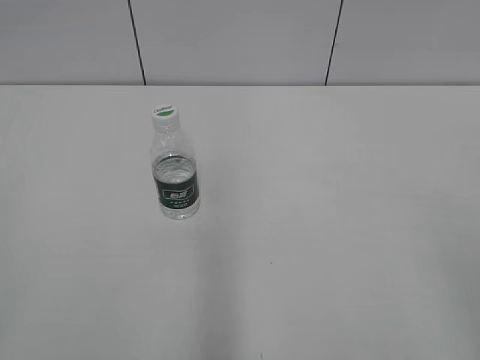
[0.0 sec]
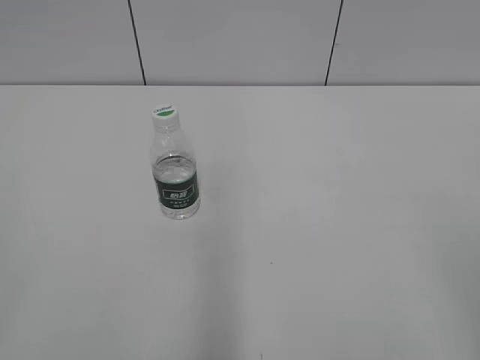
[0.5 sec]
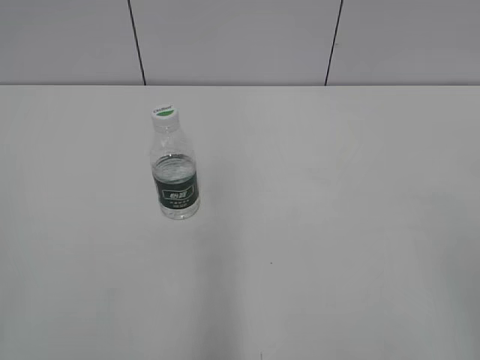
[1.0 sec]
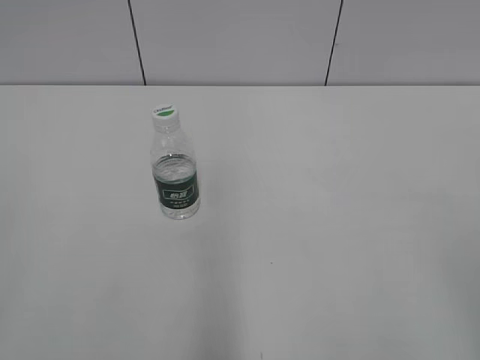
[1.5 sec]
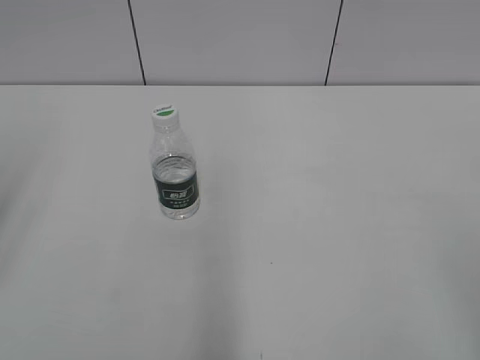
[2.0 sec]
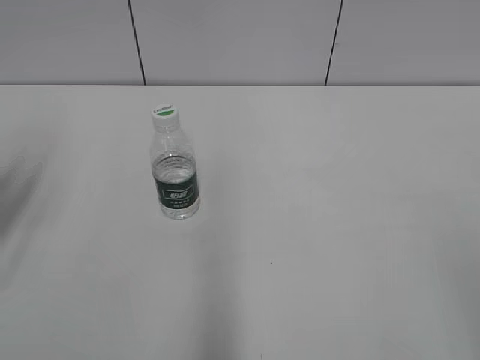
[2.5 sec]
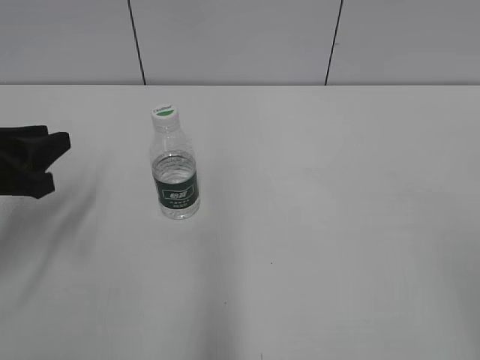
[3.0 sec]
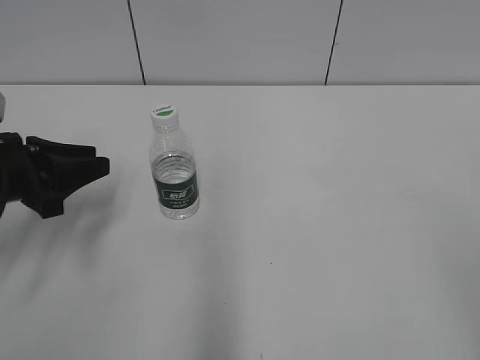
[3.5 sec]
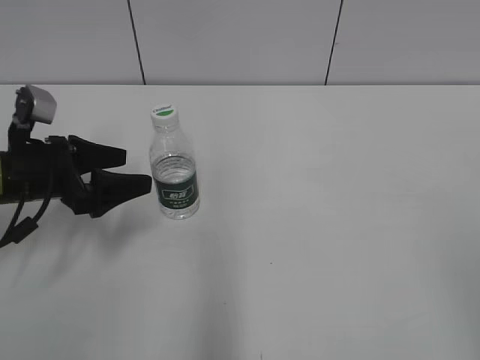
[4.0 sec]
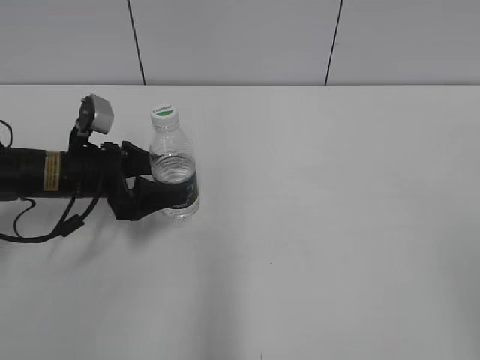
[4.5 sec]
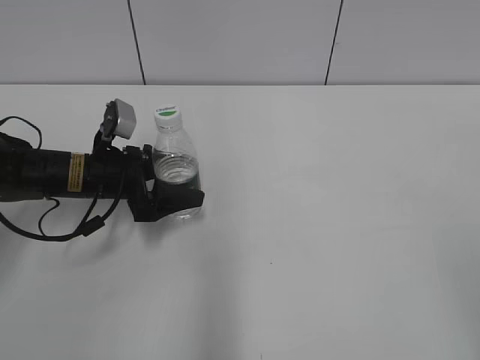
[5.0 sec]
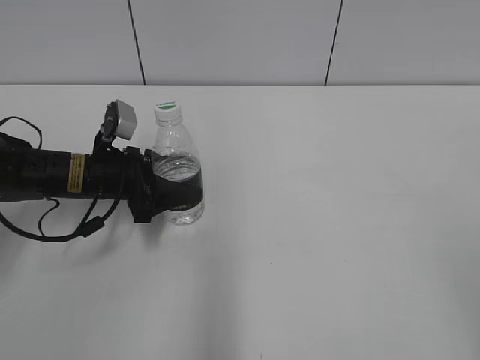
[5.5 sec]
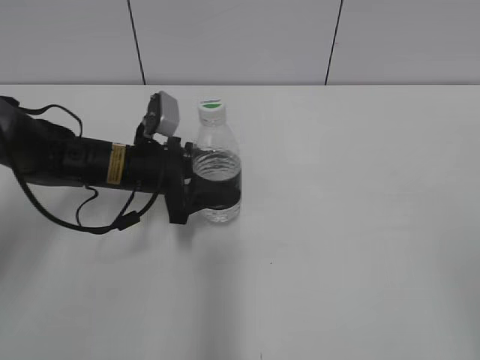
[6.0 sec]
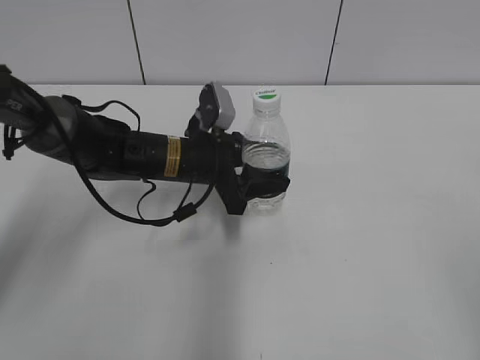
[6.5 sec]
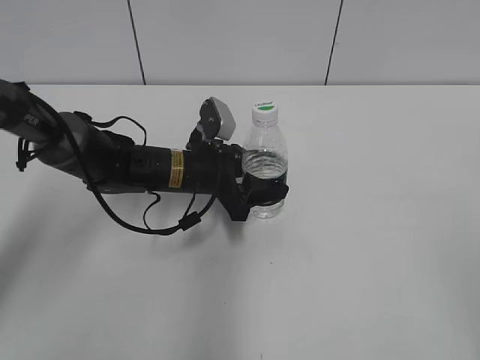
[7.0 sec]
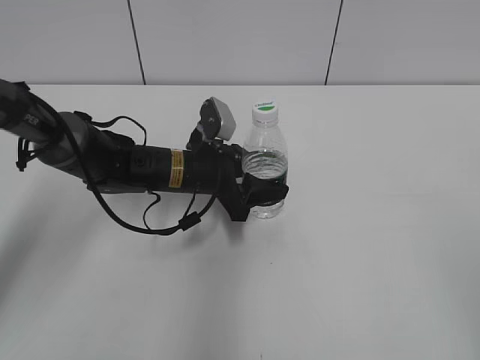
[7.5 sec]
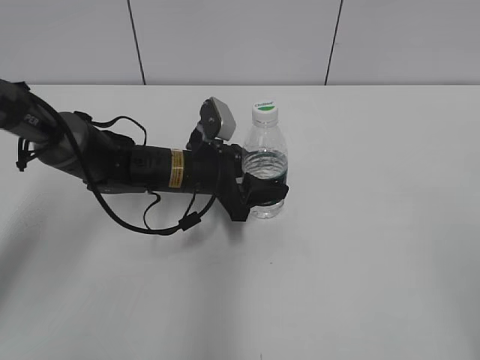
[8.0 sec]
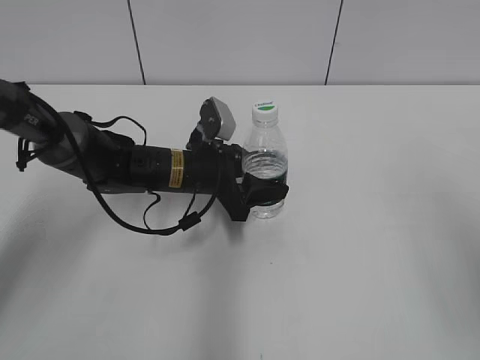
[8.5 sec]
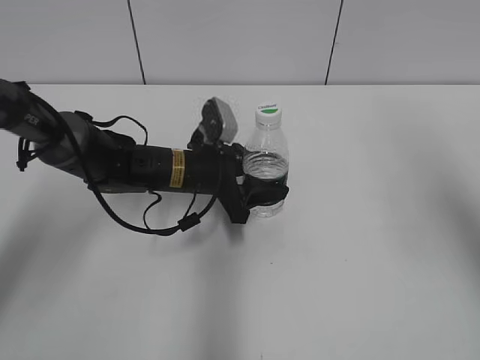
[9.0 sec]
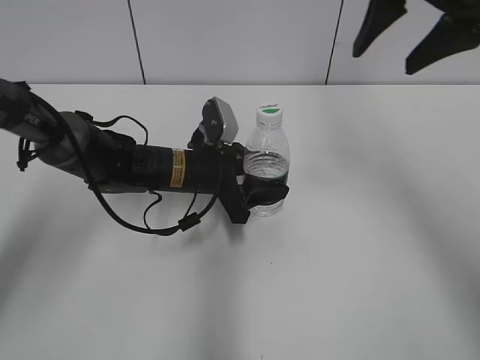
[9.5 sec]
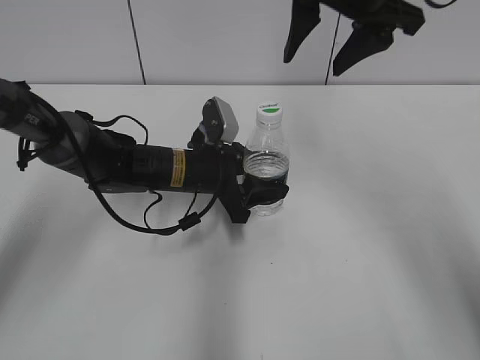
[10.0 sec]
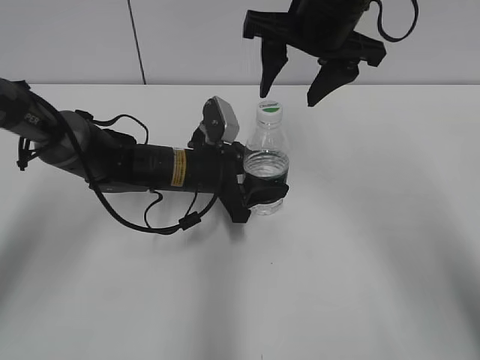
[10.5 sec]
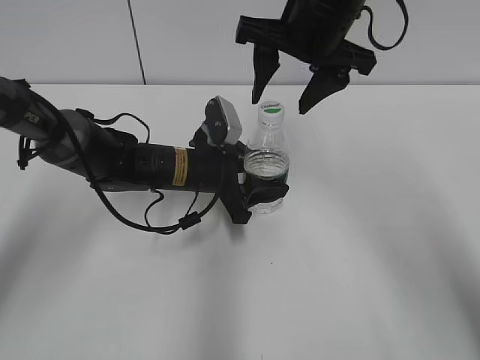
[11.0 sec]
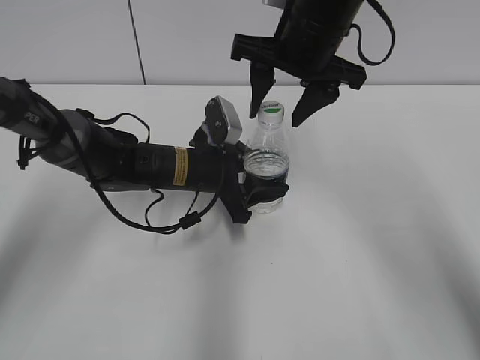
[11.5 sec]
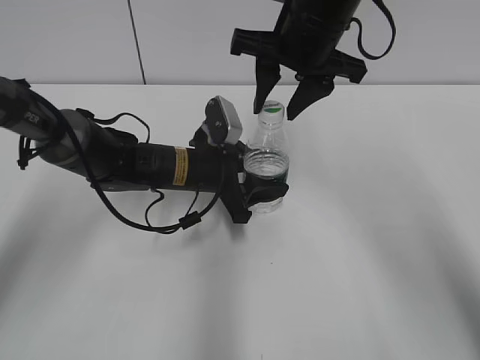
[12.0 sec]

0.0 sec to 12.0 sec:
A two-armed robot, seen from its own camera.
Step, 0.0 sec to 5.0 sec: Grasp the bottle and move it to the center of the table with the left gripper.
Step, 5.5 sec to 6.5 sec: Lift the bottle and move it to the center of the table with the left gripper.
2.0 sec to 4.0 sec: The left gripper travels downward and forward by about 30 cm, and opens its fingers.
4.0 sec to 6.0 sec: The left gripper goes approximately 10 cm to the right and forward, and closes.
6.0 sec to 8.0 sec: The left gripper moves to the right, roughly 10 cm.
8.0 sec to 10.0 sec: The right gripper travels forward and to the left by some 40 cm.
10.0 sec to 12.0 sec: The right gripper travels downward by approximately 5 cm, and closes up.

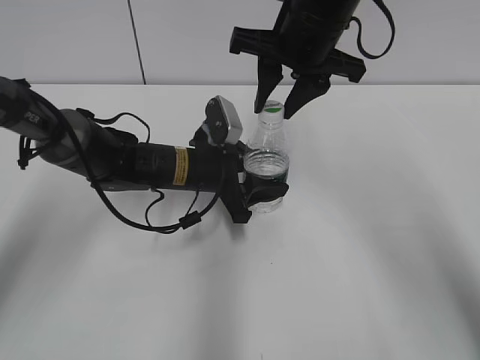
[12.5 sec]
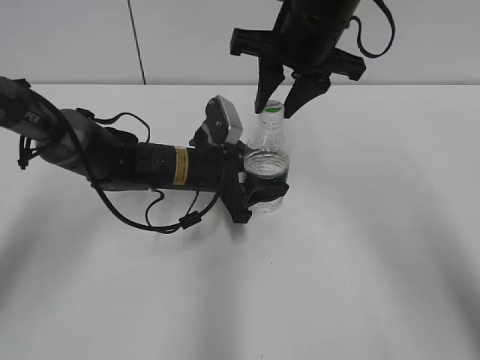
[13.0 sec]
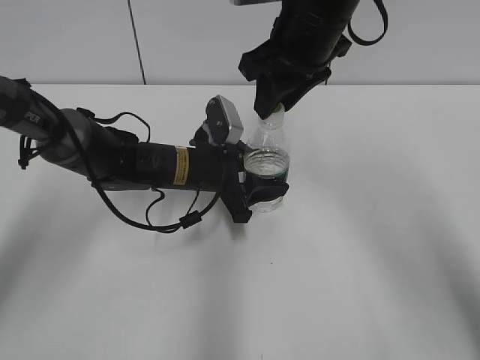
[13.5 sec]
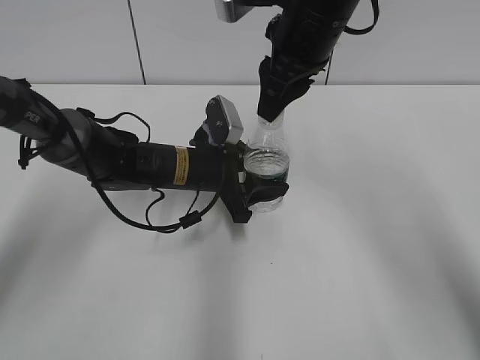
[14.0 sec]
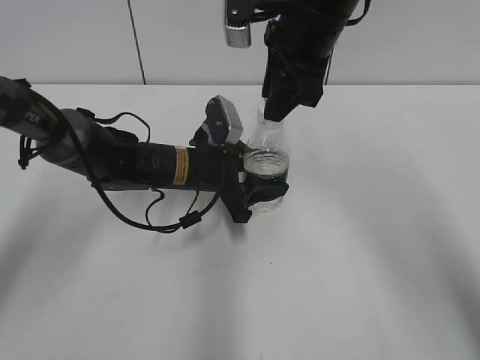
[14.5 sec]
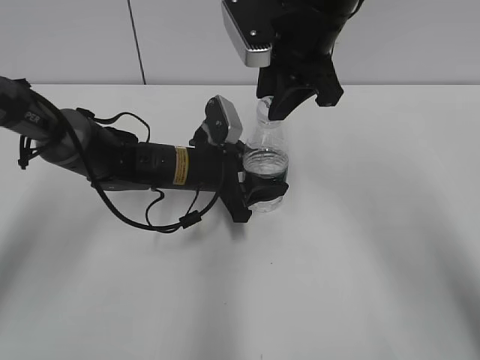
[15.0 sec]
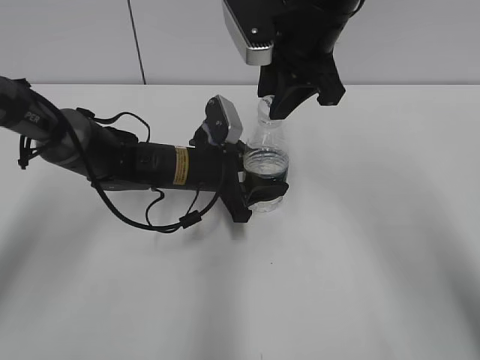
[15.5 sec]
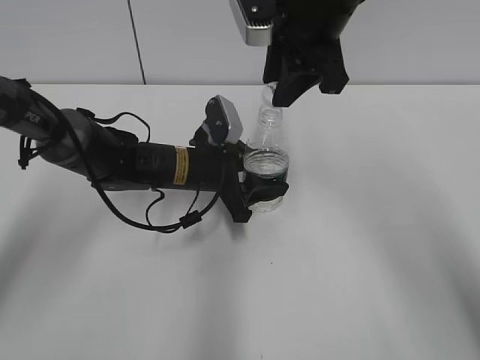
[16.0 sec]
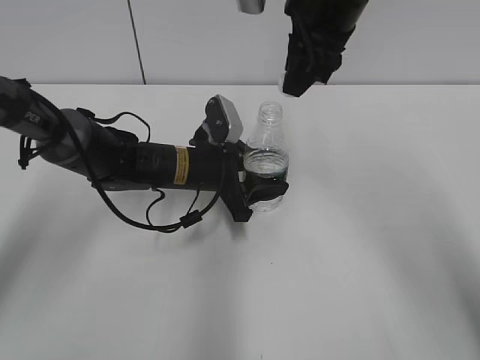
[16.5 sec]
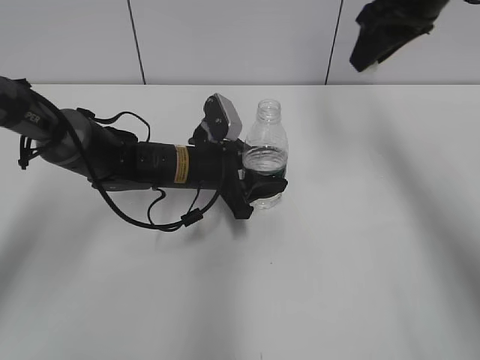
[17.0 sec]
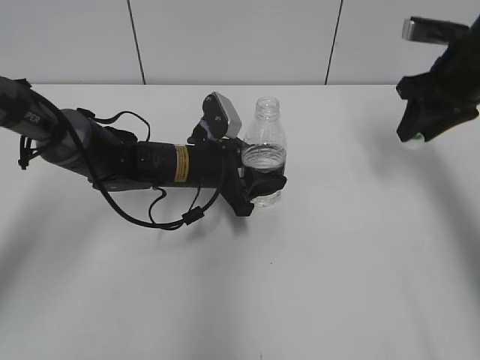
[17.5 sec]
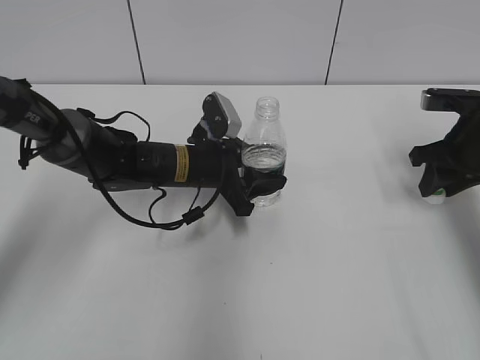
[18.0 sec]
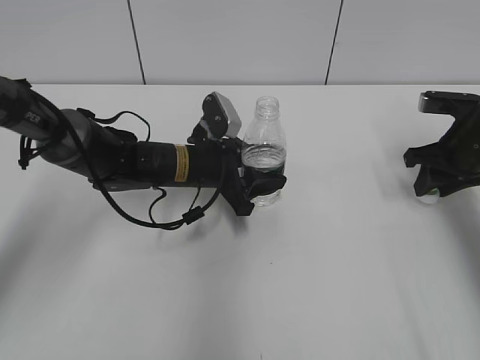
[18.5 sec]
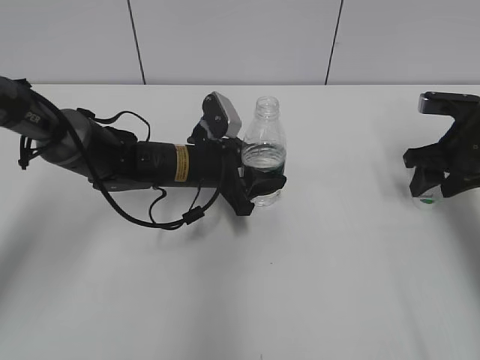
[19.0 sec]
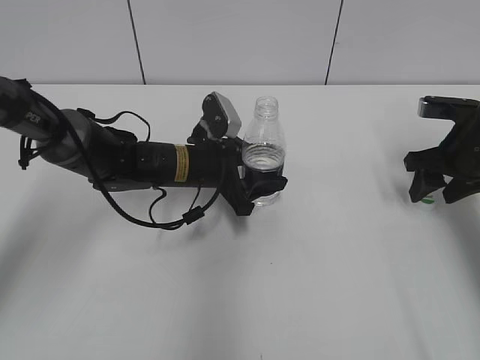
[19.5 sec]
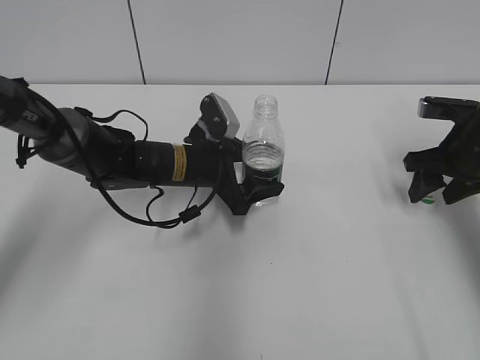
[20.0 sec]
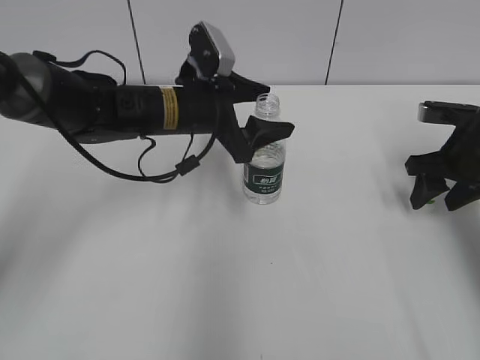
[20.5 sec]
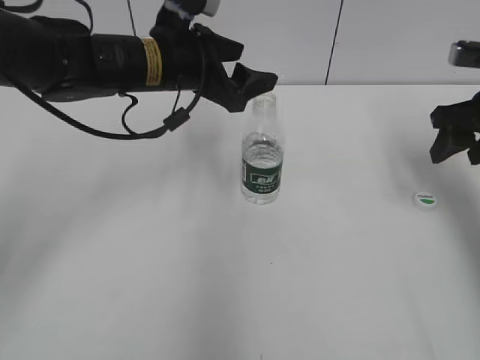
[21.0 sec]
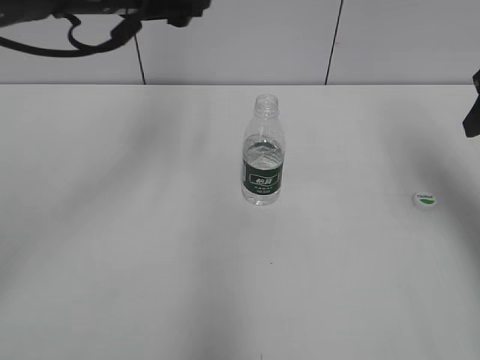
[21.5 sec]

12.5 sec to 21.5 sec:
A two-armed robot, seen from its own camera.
Step, 12.5 sec to 16.0 sec: Unscrew the bottle cap with the right gripper while holding the bottle with the left gripper.
Step, 16.5 sec to 19.5 sec: Place the bottle cap on the table with the right gripper.
Step, 20.0 sec to 21.0 sec: Place the bottle on the table with the left gripper.
14.5 sec to 17.0 sec: The right gripper is displaced to the right by about 10 cm.
17.0 sec to 19.5 sec: The right gripper is displaced downward and to the right by roughly 20 cm, and opens up.
19.5 sec to 21.5 sec: The left gripper is displaced upward by roughly 25 cm, and opens, while the right gripper shifts roughly 15 cm upward.

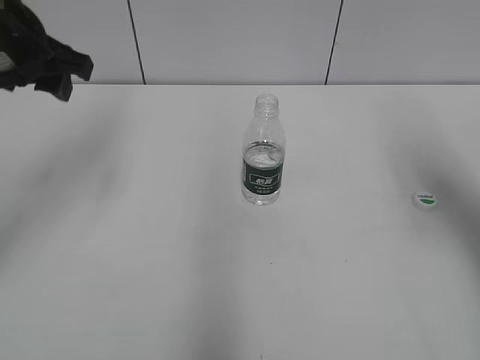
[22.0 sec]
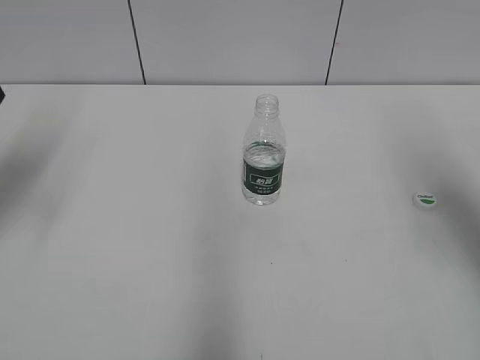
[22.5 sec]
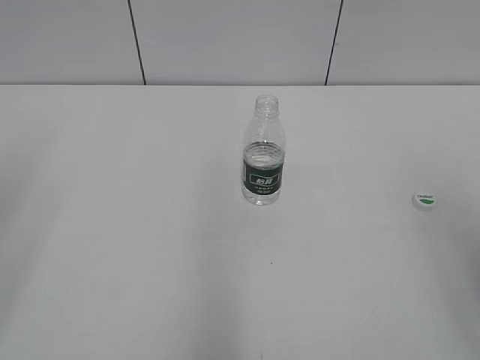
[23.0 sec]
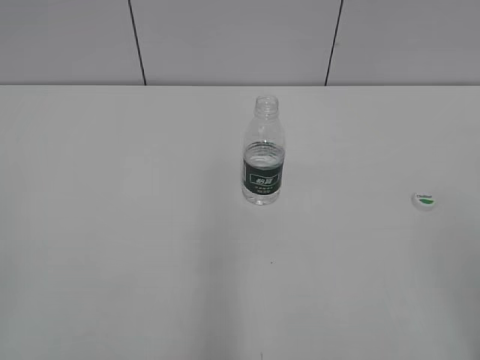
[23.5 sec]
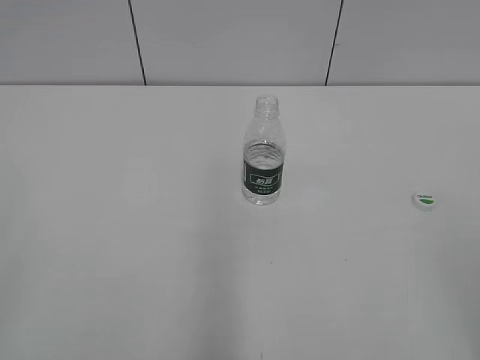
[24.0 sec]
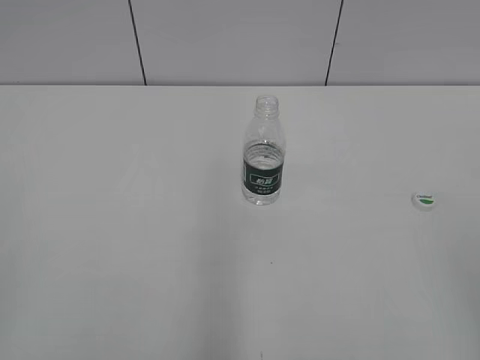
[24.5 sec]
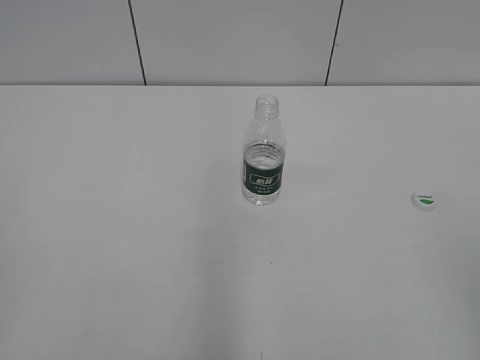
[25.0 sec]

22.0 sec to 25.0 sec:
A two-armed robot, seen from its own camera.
22.0 sec to 23.5 sec: Both grippers travel together backward, approximately 30 cm.

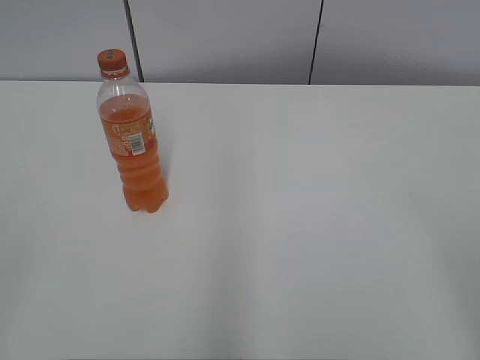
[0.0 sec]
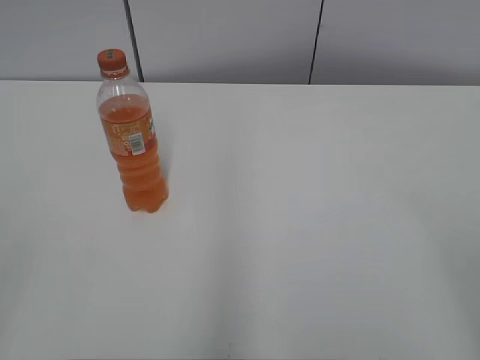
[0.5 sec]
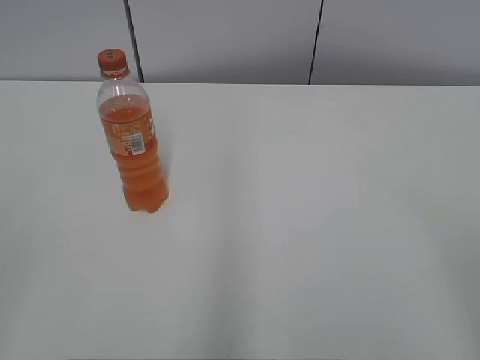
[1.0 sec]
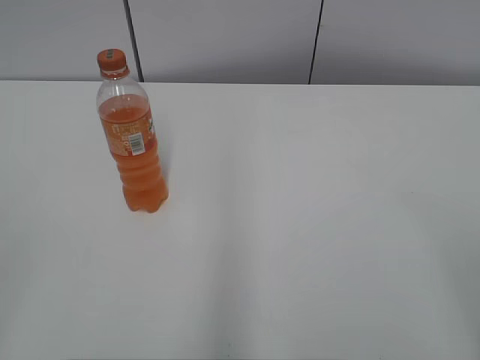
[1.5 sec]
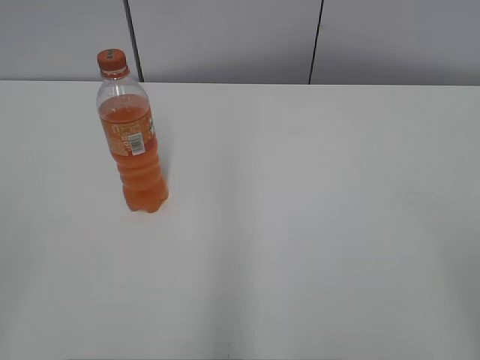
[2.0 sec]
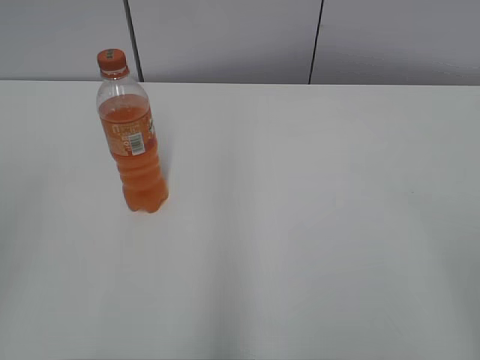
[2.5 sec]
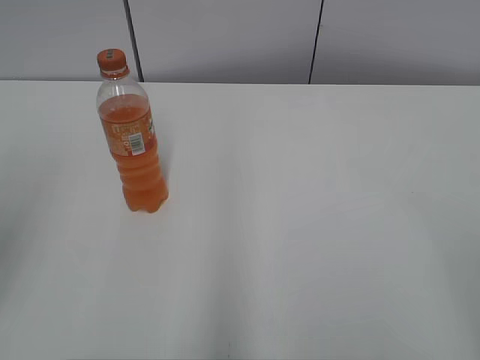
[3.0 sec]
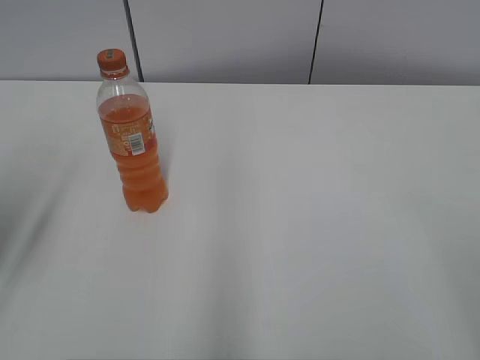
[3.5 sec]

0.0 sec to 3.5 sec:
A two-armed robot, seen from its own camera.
2.0 sec to 3.5 sec: The left gripper shifts roughly 20 cm forward, and opens up.
